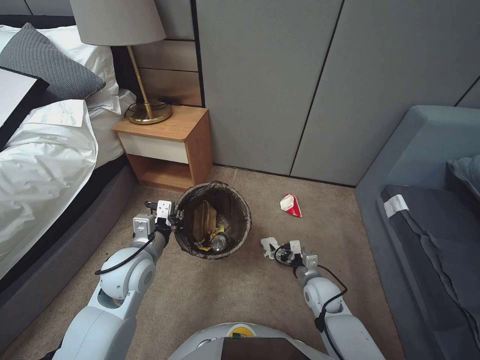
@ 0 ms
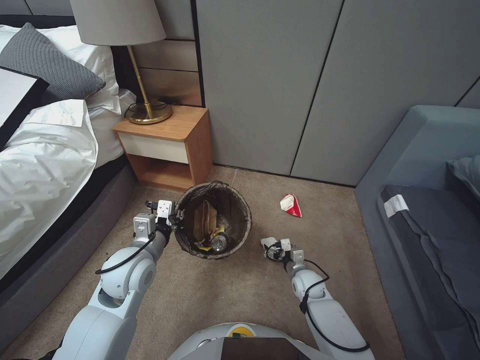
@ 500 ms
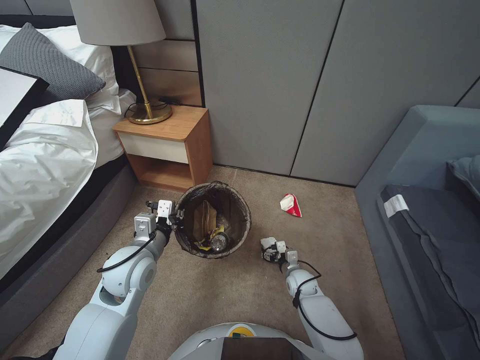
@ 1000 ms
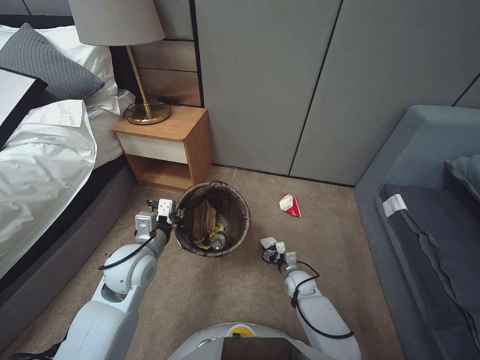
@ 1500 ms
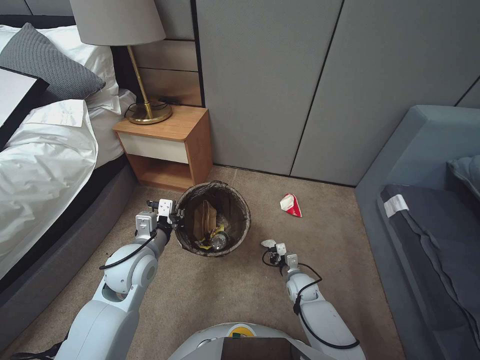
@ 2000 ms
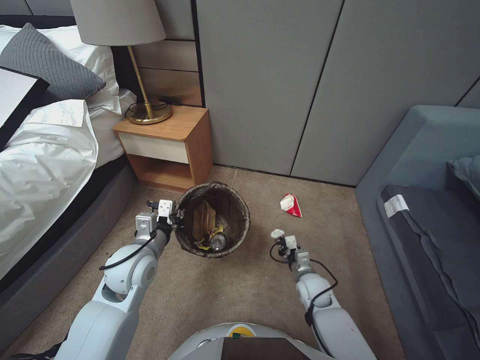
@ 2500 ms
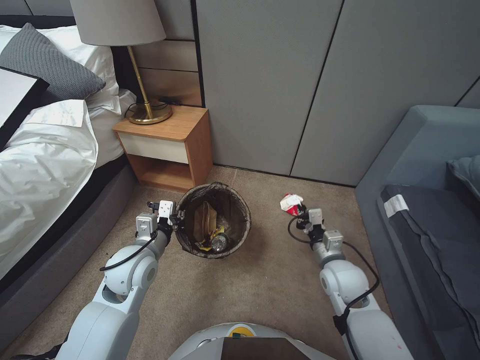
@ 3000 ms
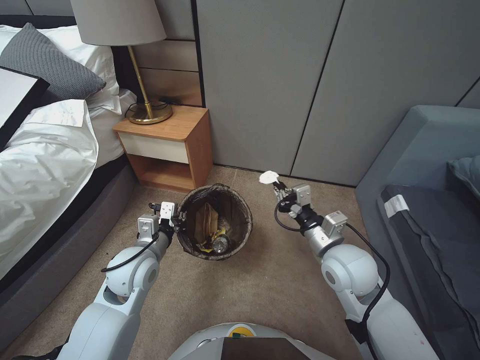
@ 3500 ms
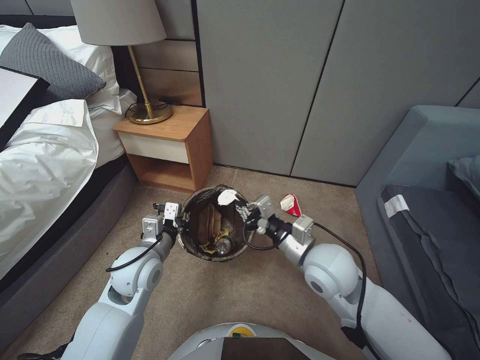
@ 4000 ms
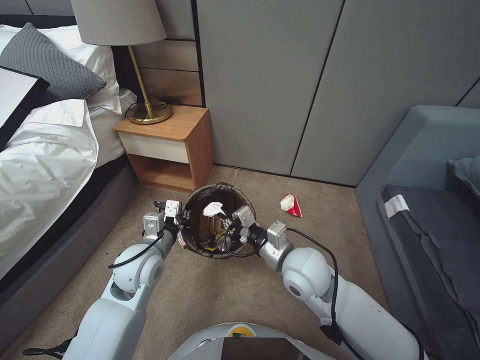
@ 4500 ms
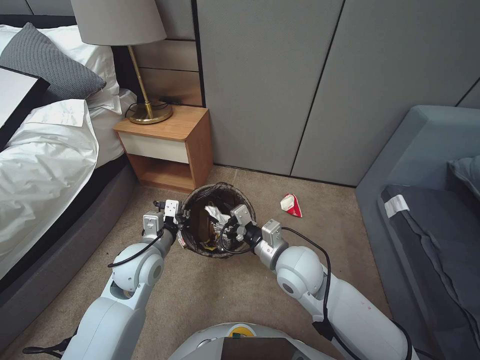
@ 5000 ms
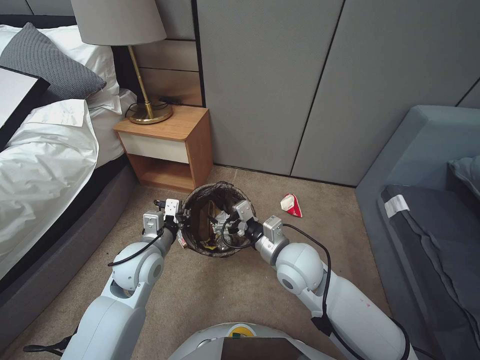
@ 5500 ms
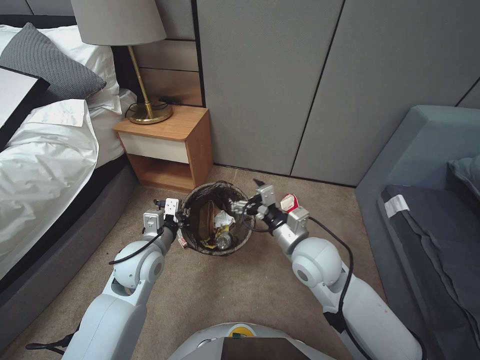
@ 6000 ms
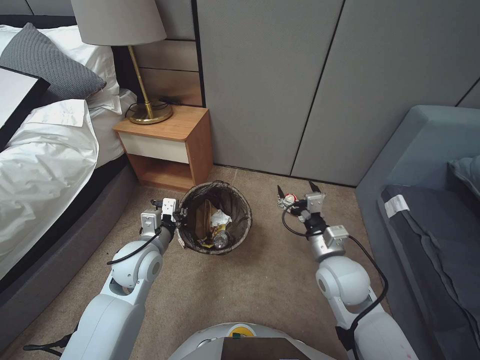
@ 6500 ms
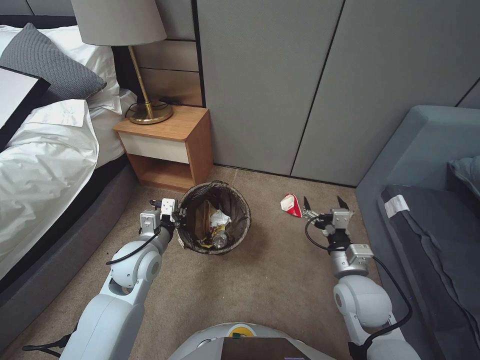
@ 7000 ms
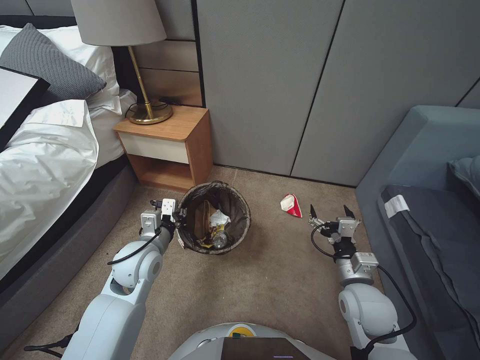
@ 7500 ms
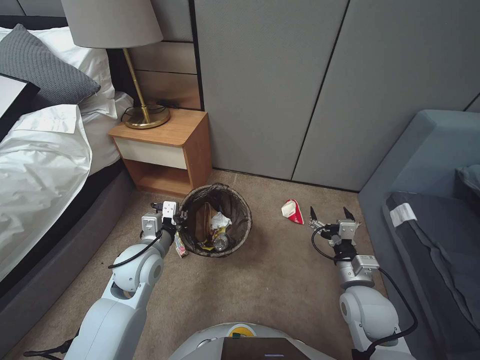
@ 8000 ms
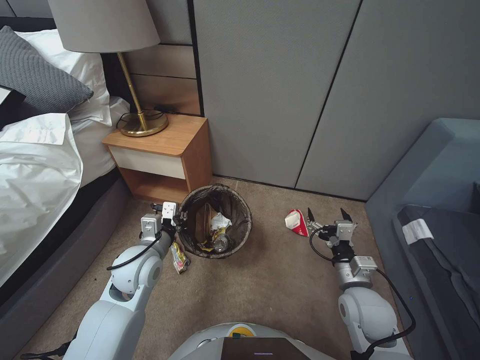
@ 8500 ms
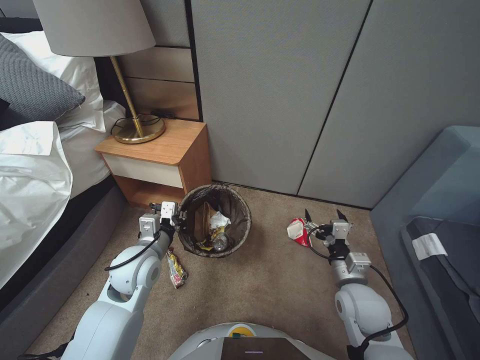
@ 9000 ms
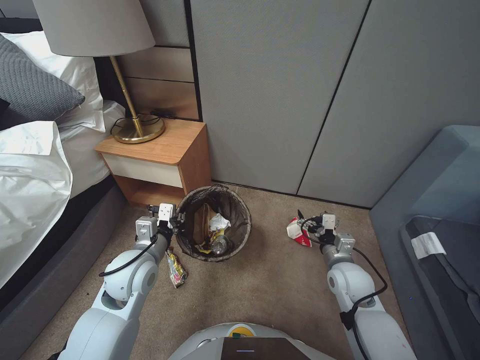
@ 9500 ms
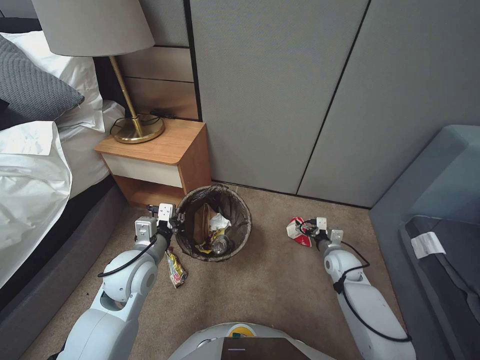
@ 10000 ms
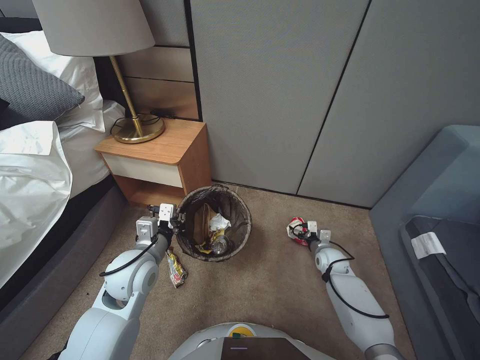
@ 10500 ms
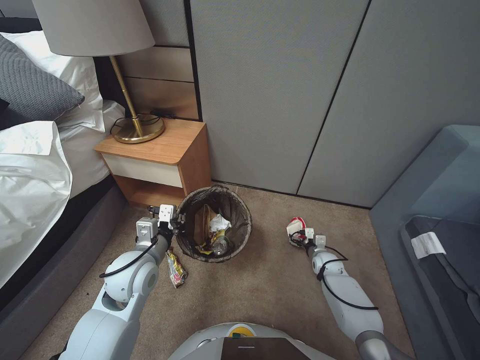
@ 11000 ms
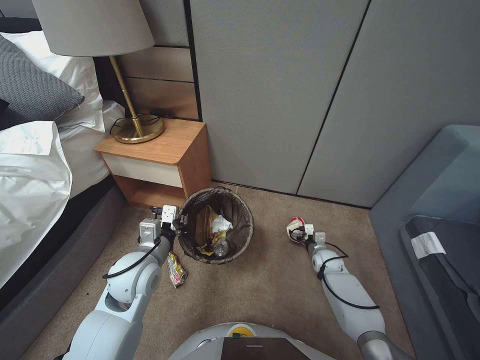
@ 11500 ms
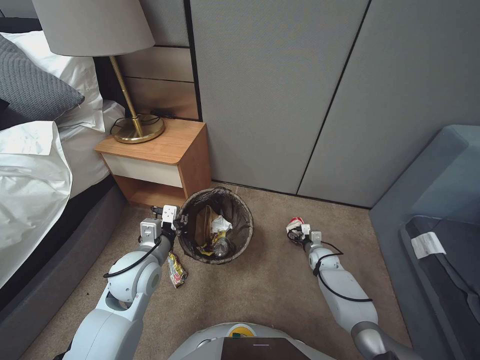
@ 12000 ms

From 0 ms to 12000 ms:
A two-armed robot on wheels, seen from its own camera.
Task of the whole recording: Pick up the trash bin, then pick up the garbage from the floor and place it into the trash bin.
From 0 ms to 2000 ms: The right gripper heads downward, covering roughly 10 cm, and closes its fingers.
From 2000 ms to 4000 ms: The right gripper moves upward, roughly 35 cm, and closes its fingers.
From 4000 ms to 6000 ms: The right gripper opens.
From 6000 ms to 8000 ms: The right gripper travels to the right, downward and backward by roughly 20 cm.
From 8000 ms to 10000 ms: The right gripper moves forward and downward, roughly 15 cm.
From 10000 ms to 12000 ms: The right gripper is displaced downward and forward by some 15 cm.

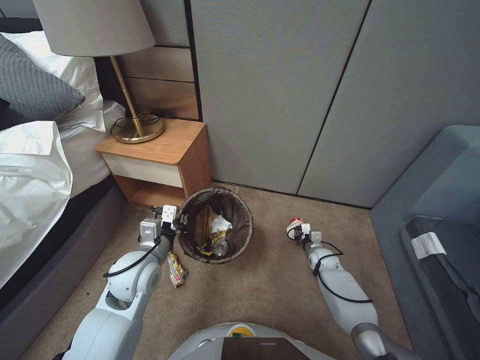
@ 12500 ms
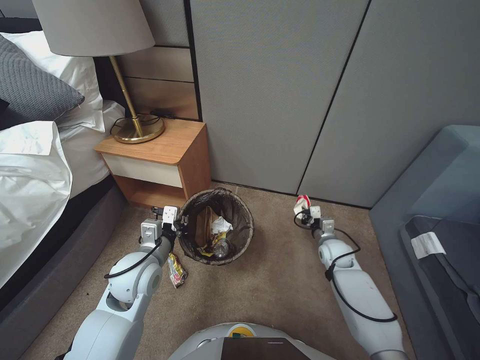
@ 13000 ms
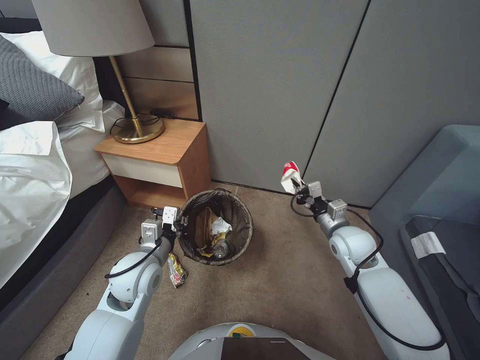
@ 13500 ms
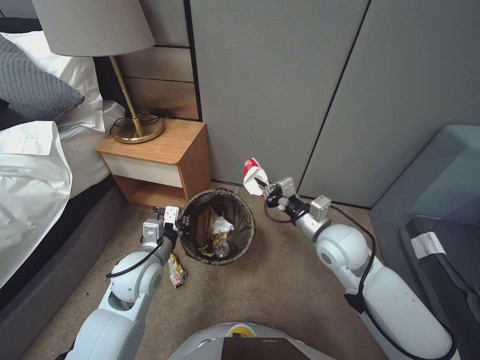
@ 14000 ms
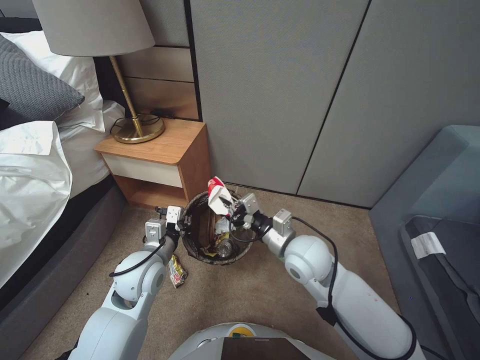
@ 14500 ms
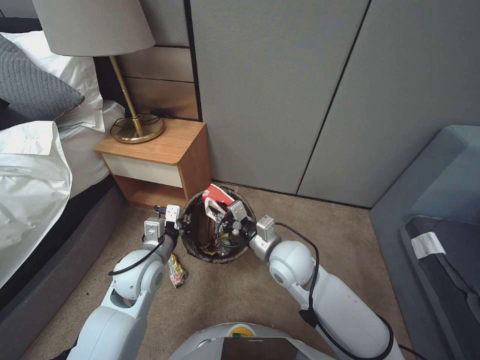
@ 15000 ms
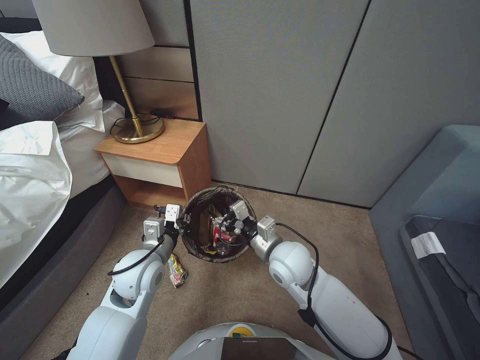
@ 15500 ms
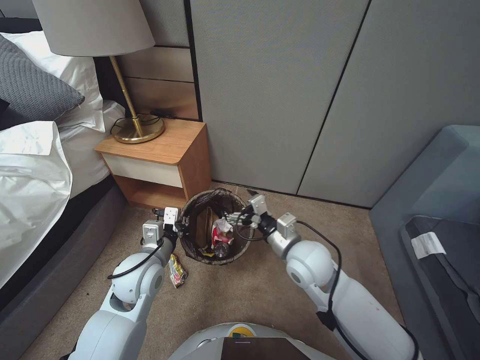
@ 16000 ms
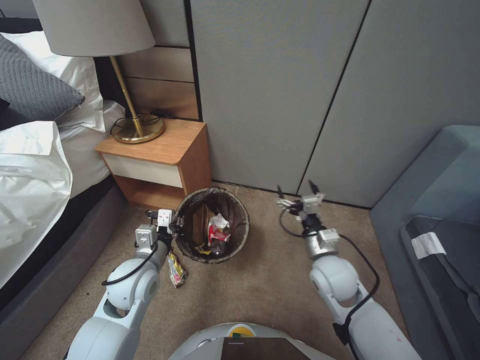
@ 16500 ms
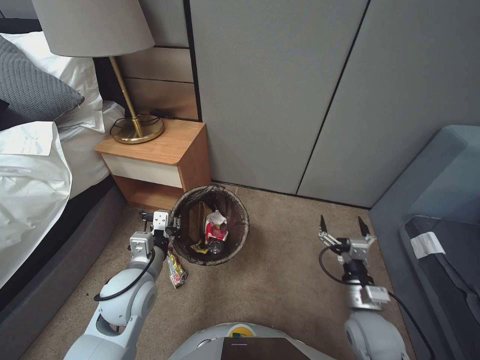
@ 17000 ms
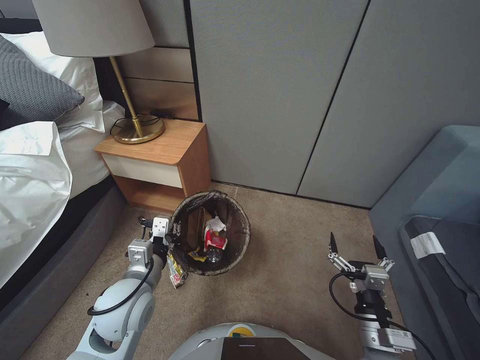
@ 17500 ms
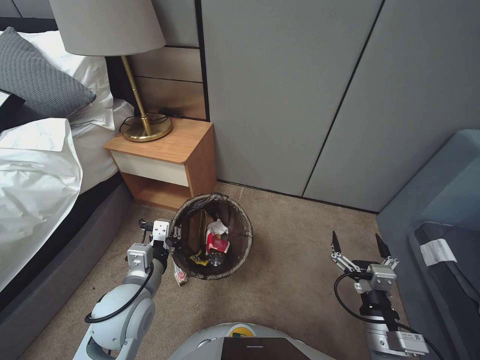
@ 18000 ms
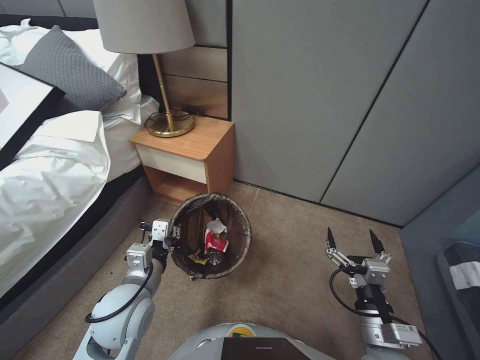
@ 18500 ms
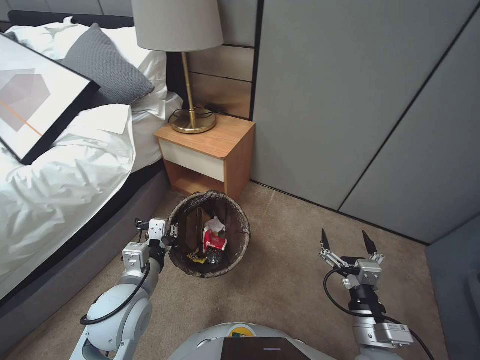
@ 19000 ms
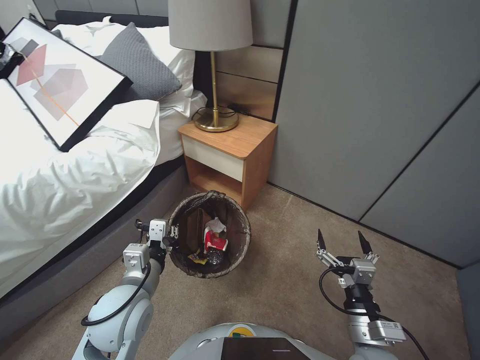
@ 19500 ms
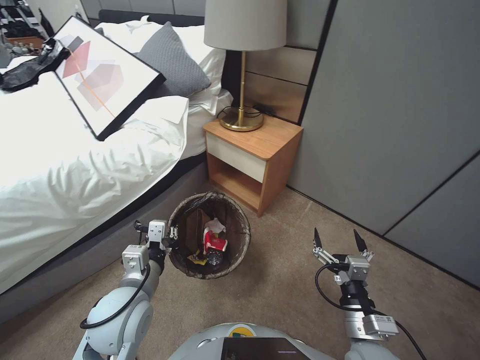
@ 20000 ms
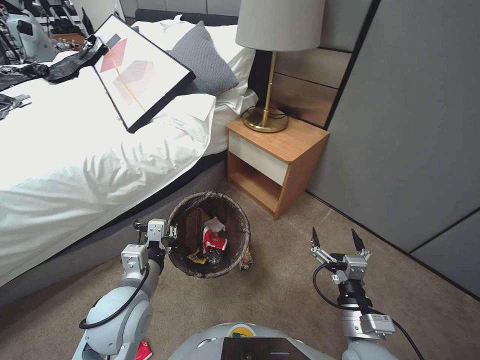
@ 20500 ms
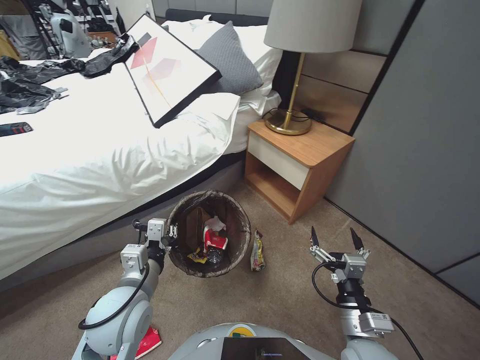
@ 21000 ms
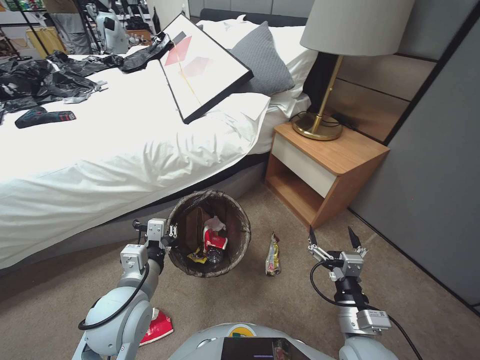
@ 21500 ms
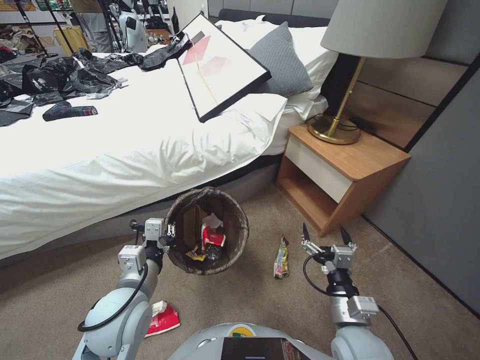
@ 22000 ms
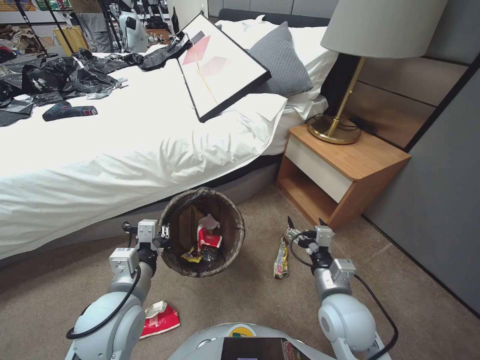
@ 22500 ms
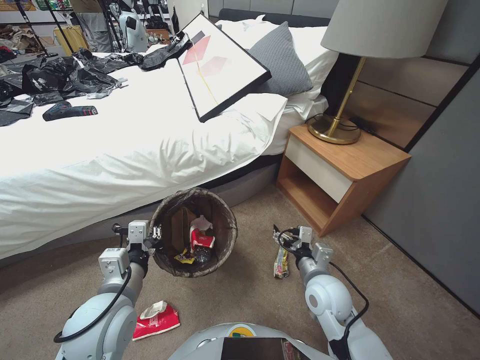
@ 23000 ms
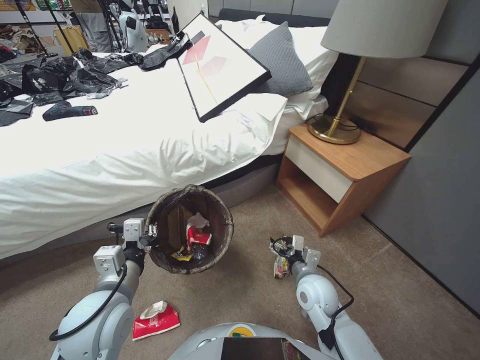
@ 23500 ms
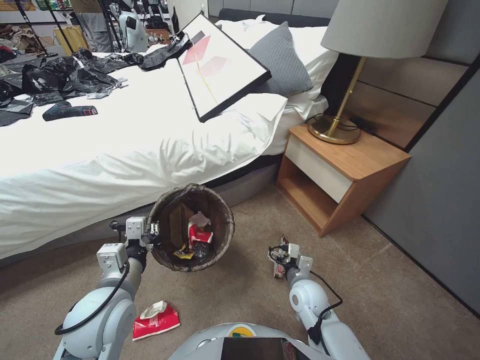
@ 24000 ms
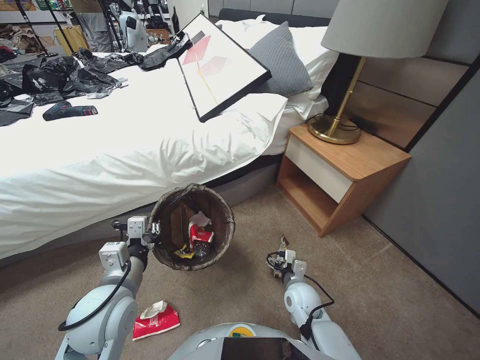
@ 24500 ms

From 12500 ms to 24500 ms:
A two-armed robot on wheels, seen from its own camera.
Task of the whole recording: Pick up the trash bin, then pick up the garbage from the floor and place it into the trash bin.
From 12500 ms to 14500 ms: The right gripper heads upward and to the left, covering about 35 cm.
From 14500 ms to 16500 ms: The right gripper moves downward and to the right, roughly 10 cm, and opens up.
From 16500 ms to 18500 ms: The right gripper moves backward, about 20 cm; the left gripper heads backward, covering approximately 5 cm.
From 20500 ms to 22500 ms: The right gripper travels forward by roughly 5 cm.
From 22500 ms to 24500 ms: The right gripper goes some 15 cm downward and forward.

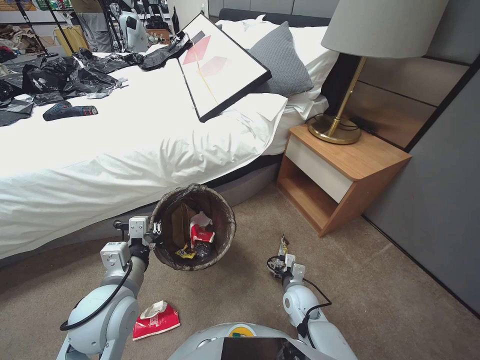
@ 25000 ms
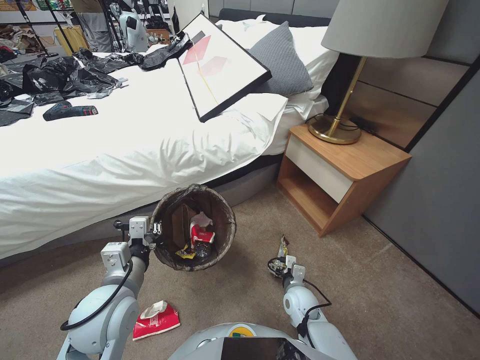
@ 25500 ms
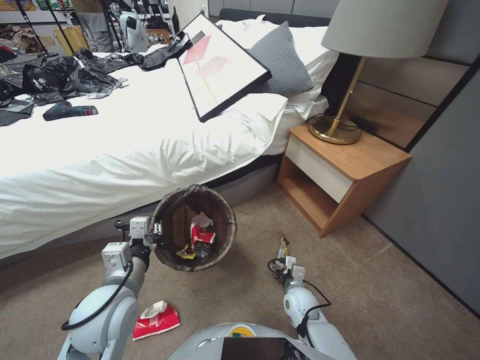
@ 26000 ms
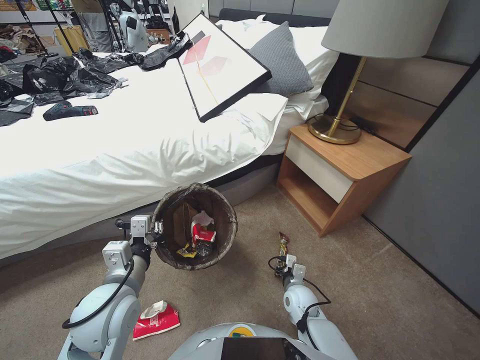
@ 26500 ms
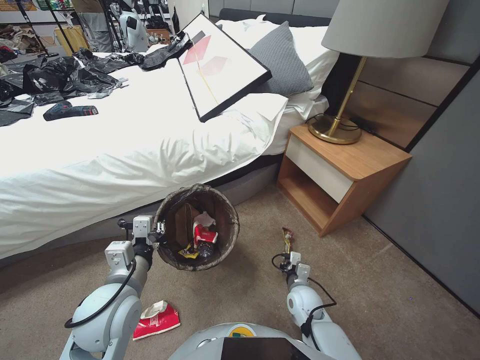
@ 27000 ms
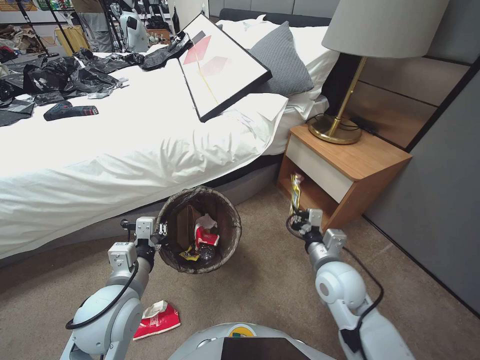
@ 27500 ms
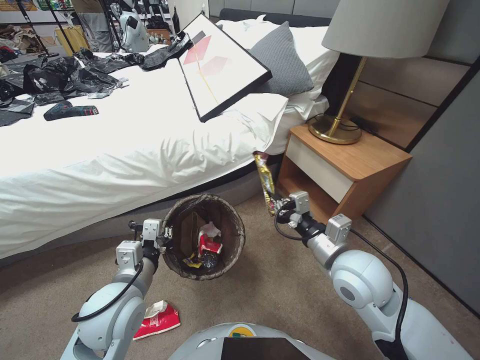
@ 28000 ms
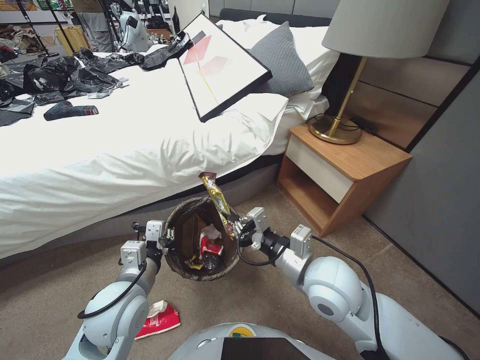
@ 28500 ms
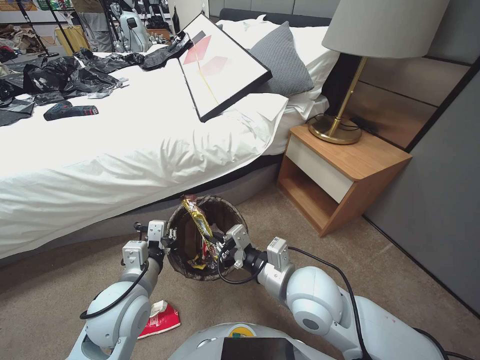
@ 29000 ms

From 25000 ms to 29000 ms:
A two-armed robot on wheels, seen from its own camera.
Task of the whole recording: Pick up the trash bin, then pick up the garbage from the floor and place it into the trash bin.
From 25000 ms to 27000 ms: The right gripper closes.
From 27000 ms to 29000 ms: The right gripper travels upward by some 30 cm.
